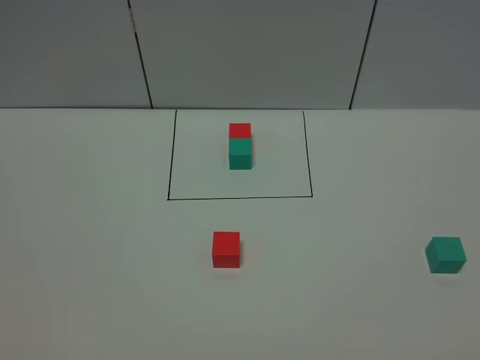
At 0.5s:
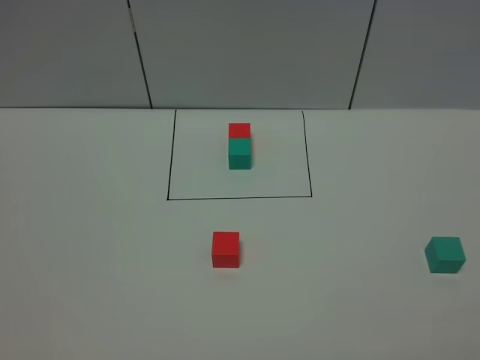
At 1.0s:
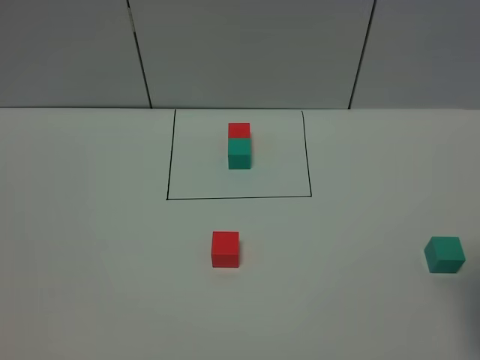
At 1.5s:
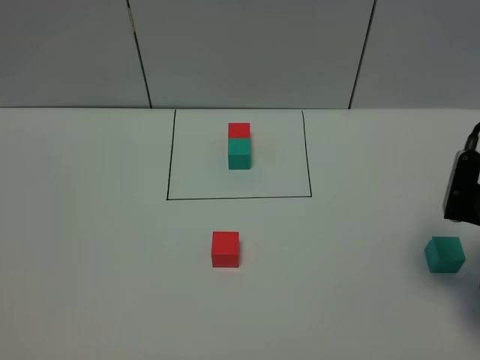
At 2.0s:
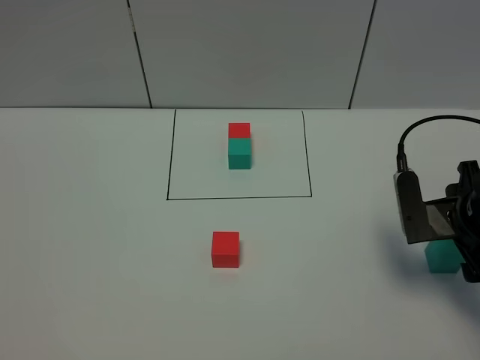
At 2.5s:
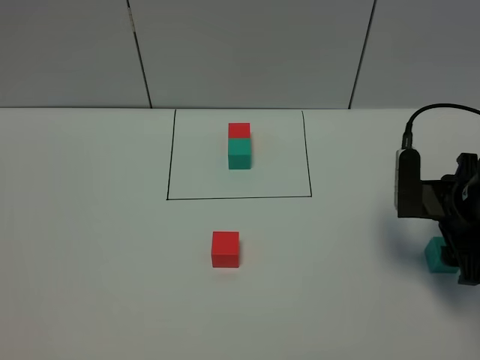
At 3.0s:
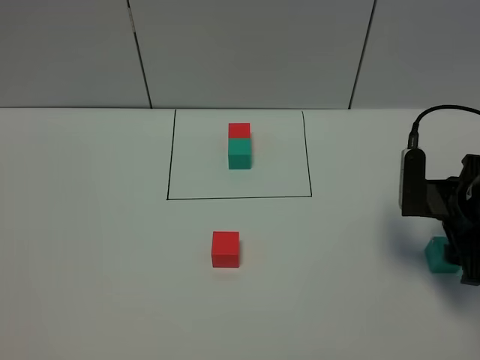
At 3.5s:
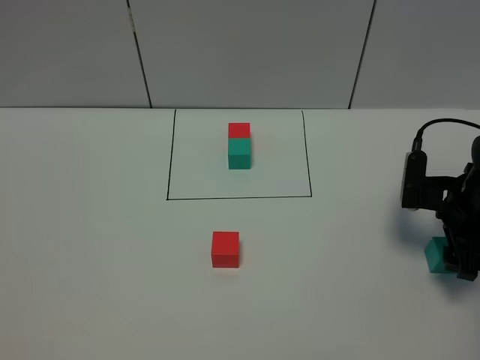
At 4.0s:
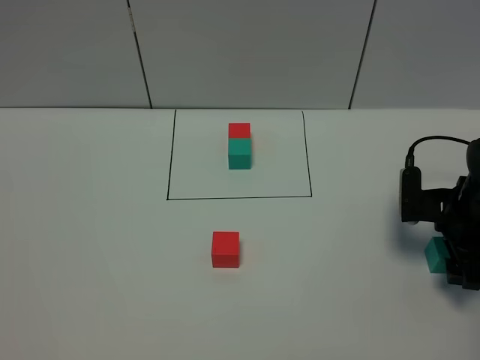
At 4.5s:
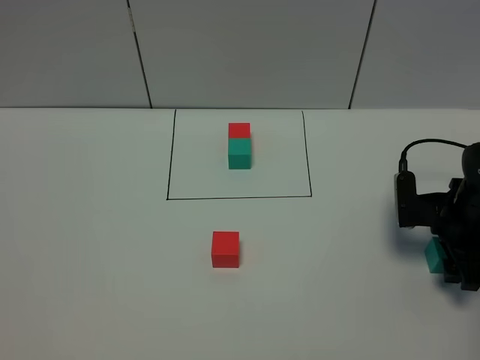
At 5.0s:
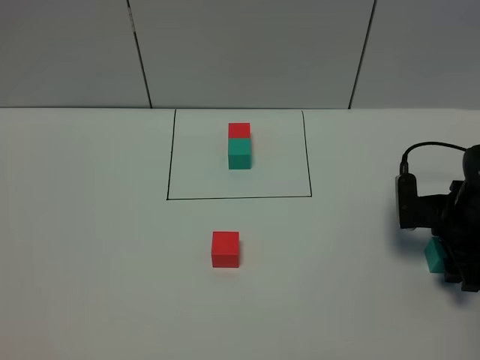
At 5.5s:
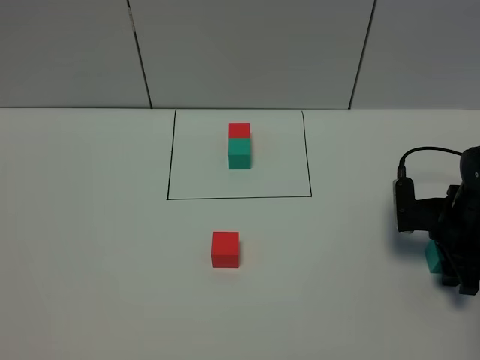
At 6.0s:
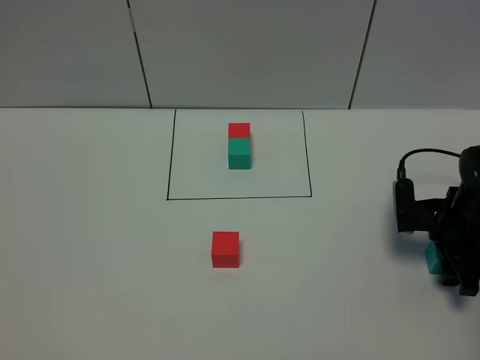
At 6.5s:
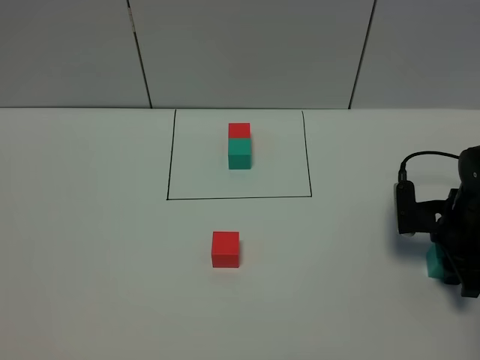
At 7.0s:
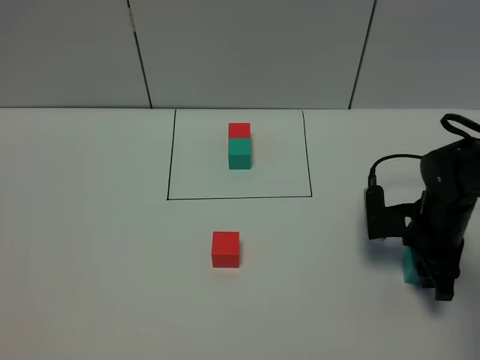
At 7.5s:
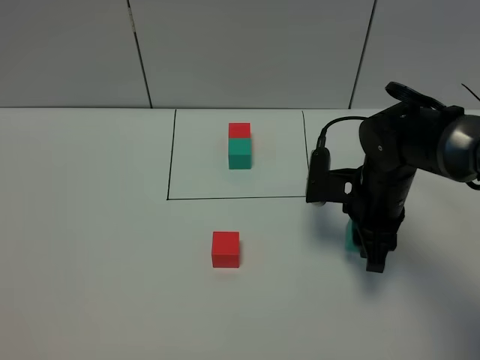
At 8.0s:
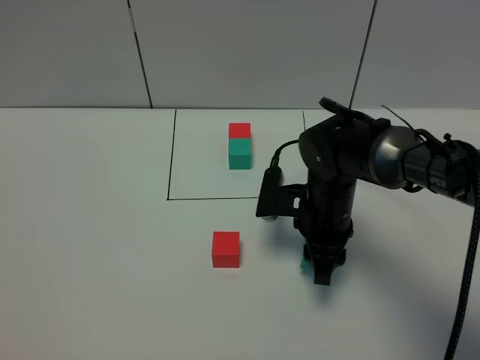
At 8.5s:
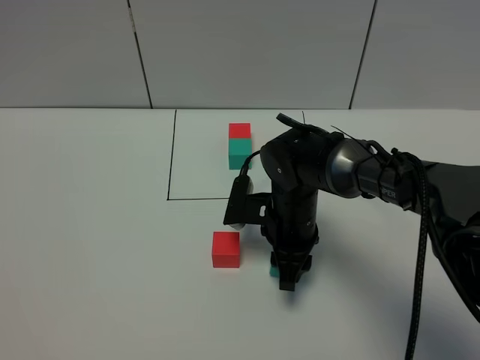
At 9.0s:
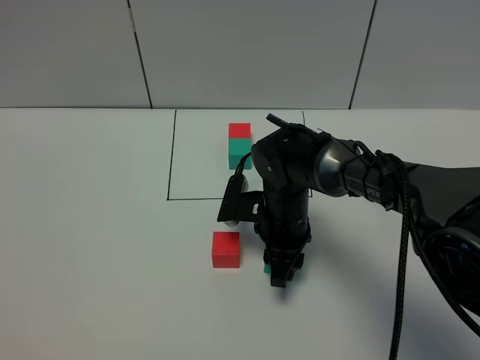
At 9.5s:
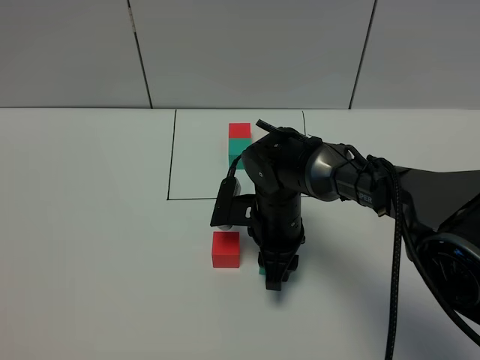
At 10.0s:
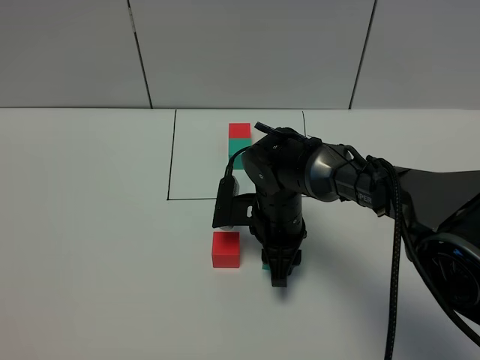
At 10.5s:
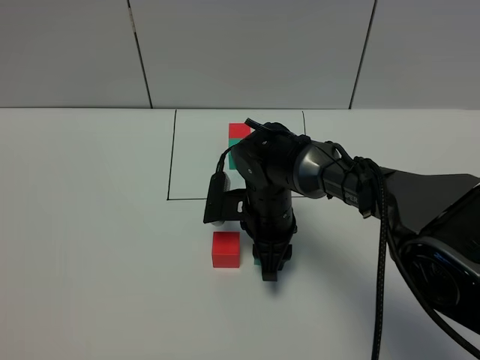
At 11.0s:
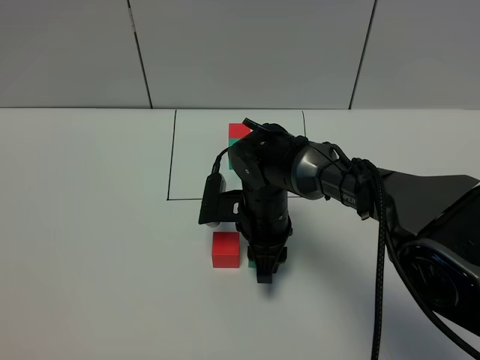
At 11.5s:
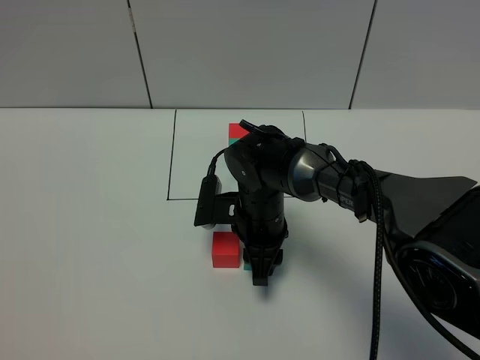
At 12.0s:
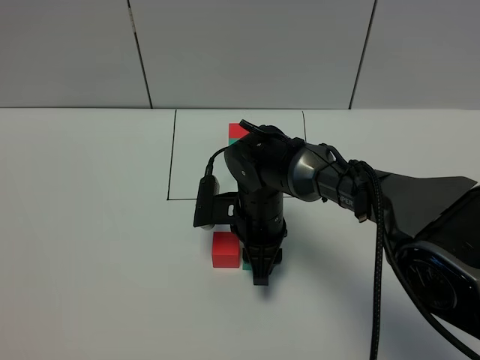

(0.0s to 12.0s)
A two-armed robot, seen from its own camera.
Task of the whole recording: According to the building block template in front, assemble the scattered blocks together.
0.0s - 2.0s: The right gripper goes roughly 30 cm forward.
2.0s - 4.0s: The right gripper shifts approximately 5 cm downward.
4.0s - 6.0s: The right gripper closes.
6.0s - 8.0s: The right gripper heads to the left, covering about 20 cm, and closes up.
8.0s - 10.0s: The right gripper travels to the left by some 5 cm.
10.0s - 12.0s: The grippers make only small movements.

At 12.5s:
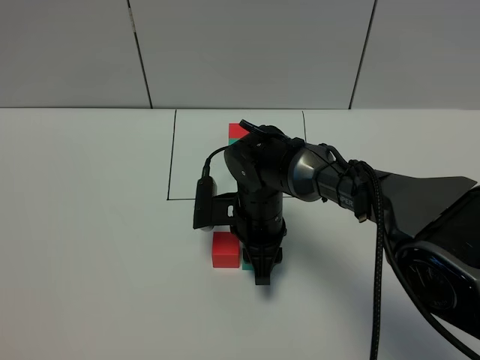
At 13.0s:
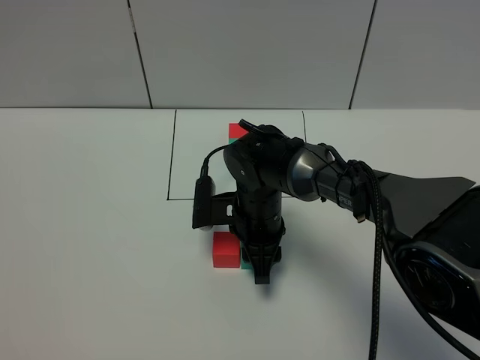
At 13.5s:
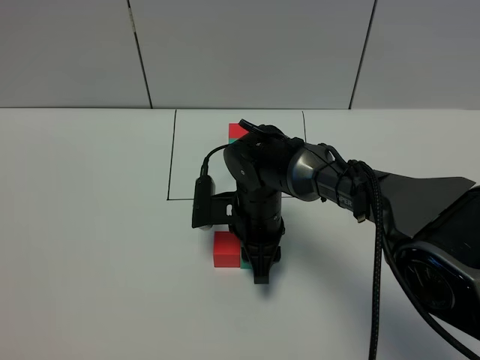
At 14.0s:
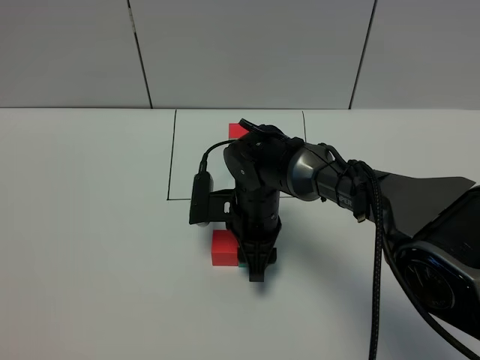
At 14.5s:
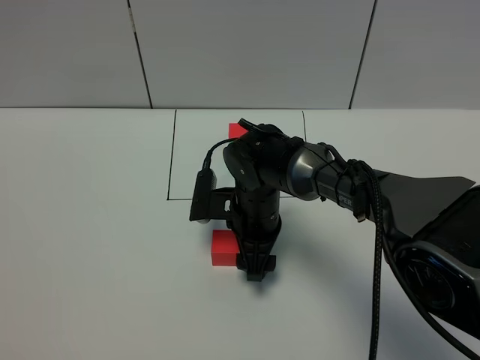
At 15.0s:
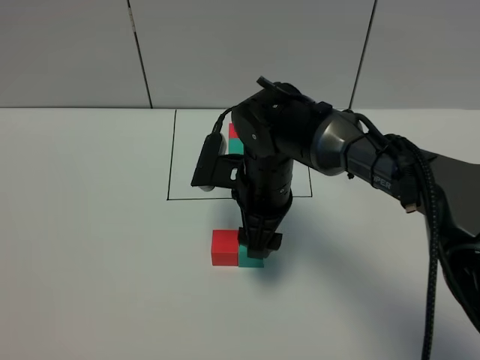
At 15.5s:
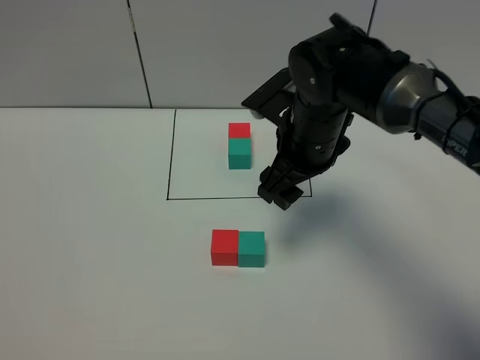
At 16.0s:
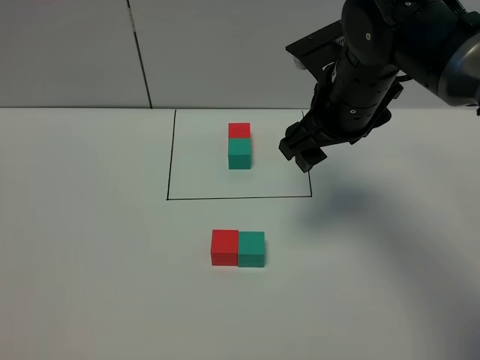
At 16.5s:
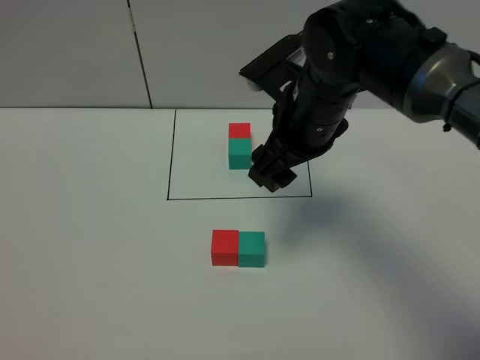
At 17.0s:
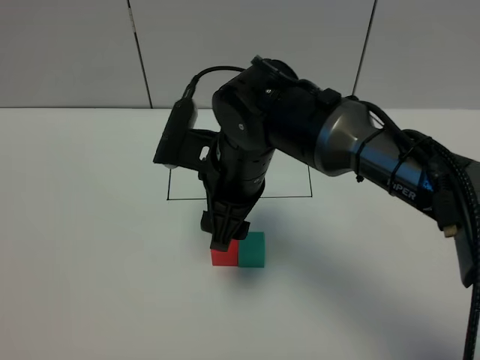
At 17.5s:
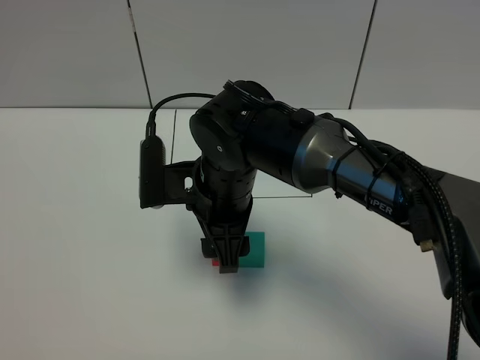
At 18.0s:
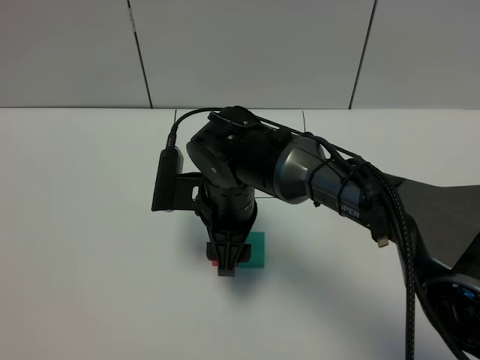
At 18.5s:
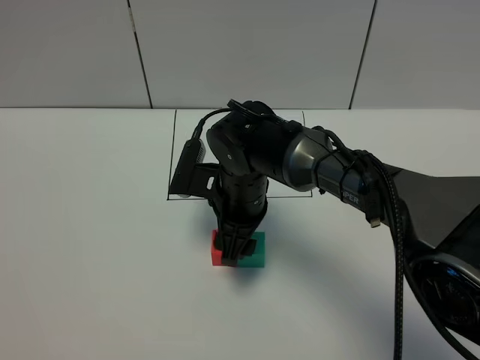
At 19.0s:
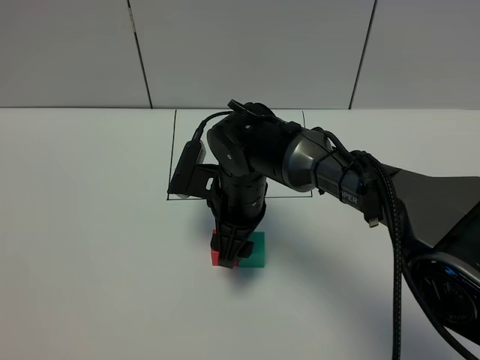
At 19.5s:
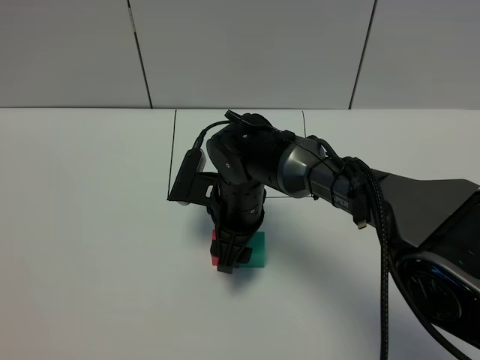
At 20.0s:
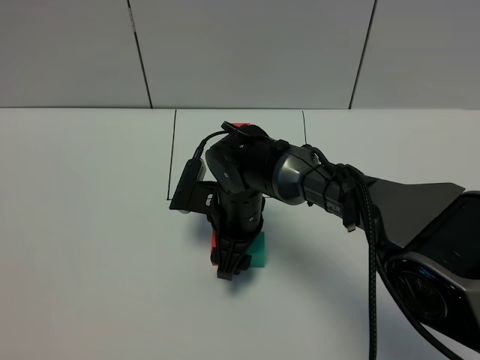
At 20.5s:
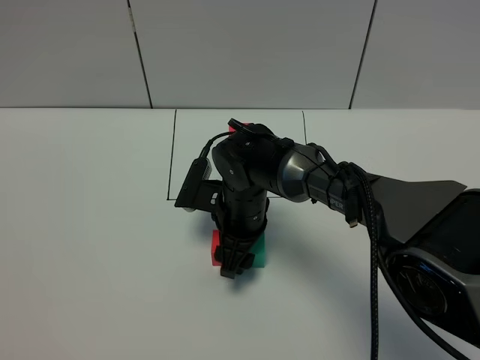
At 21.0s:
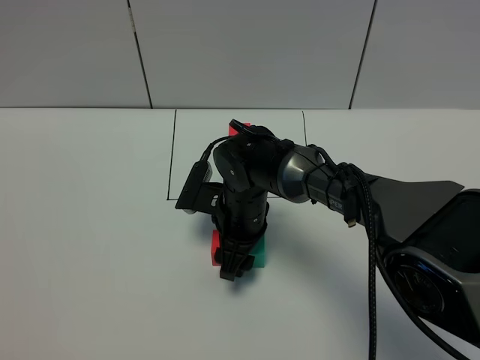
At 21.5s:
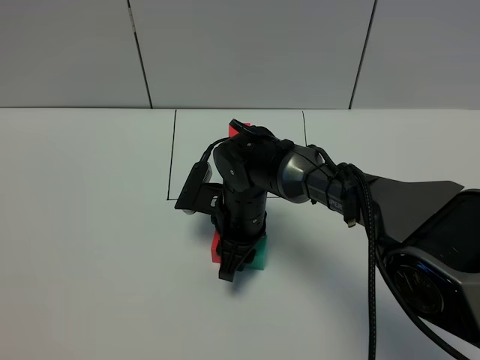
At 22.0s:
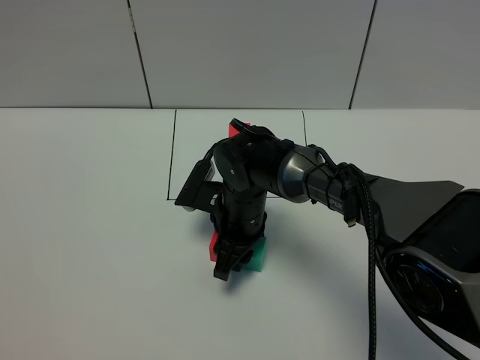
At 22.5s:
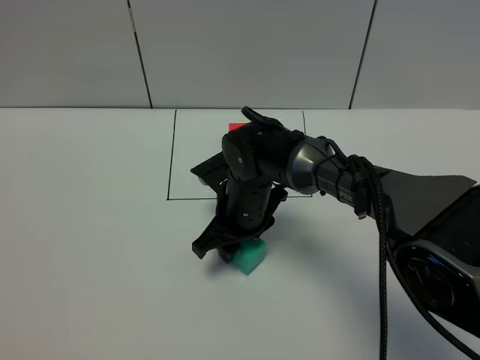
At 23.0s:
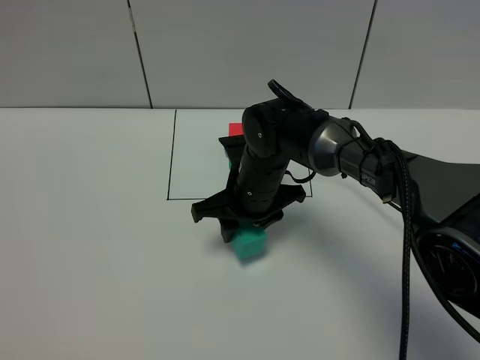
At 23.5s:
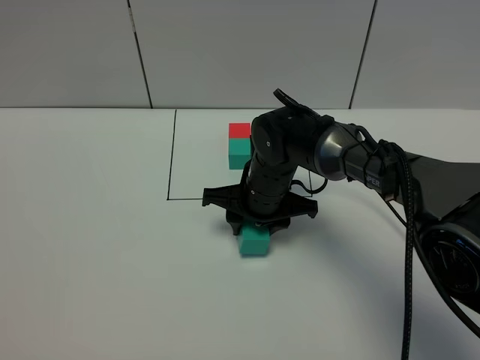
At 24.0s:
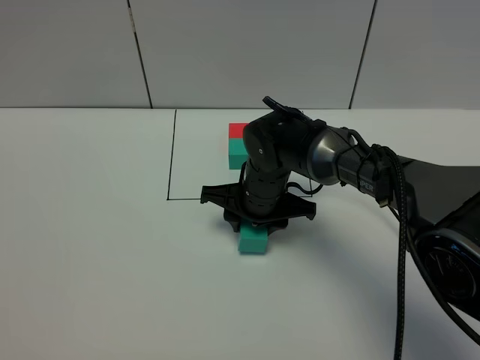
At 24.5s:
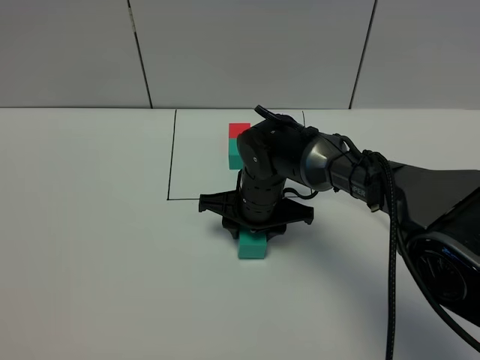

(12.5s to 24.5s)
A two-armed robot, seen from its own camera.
Task of the whole recording: According to the building block template in front, assemble the scattered blocks together.
12.5s - 14.5s: The right gripper opens.
14.5s - 16.5s: The right gripper shifts some 15 cm upward.
16.5s - 18.5s: The right gripper heads downward and to the left, covering some 15 cm.
18.5s - 20.5s: The grippers stay close to where they were, moving slightly.
20.5s - 22.5s: The right gripper closes.

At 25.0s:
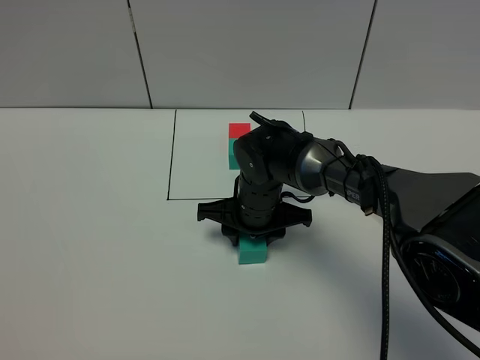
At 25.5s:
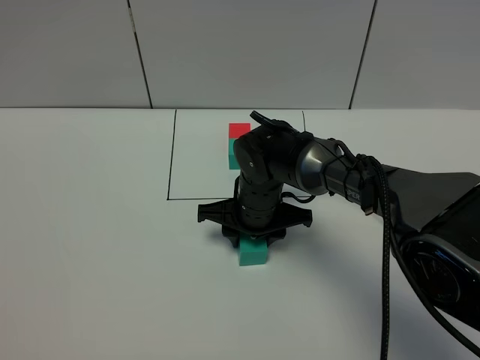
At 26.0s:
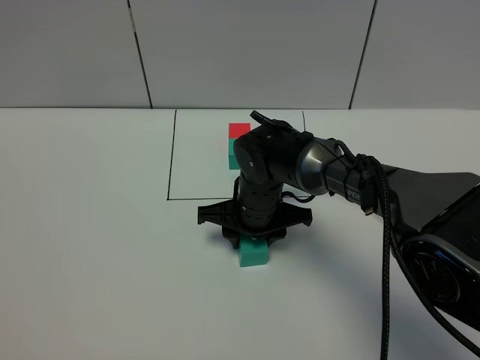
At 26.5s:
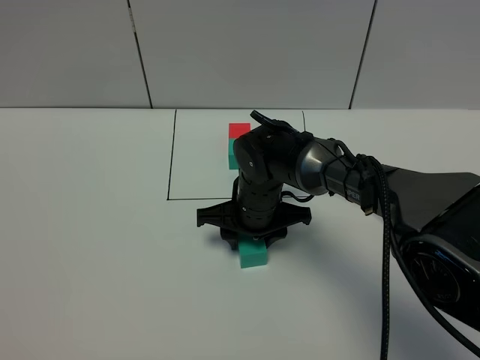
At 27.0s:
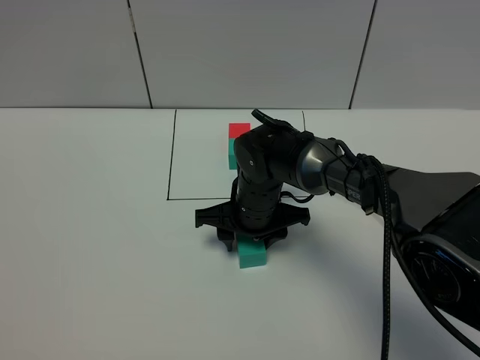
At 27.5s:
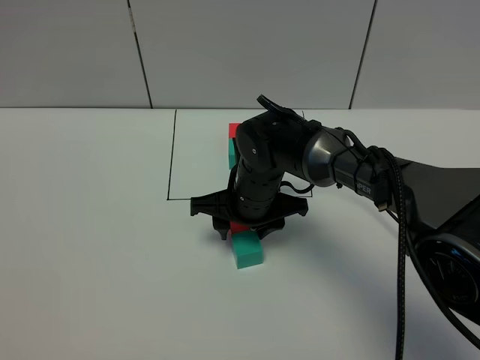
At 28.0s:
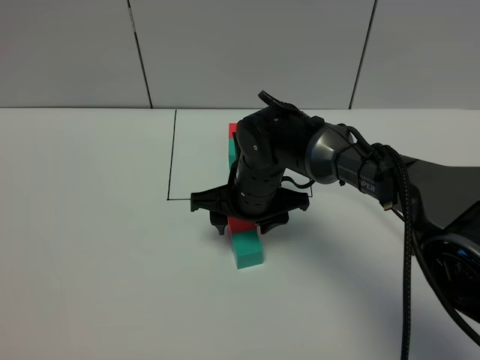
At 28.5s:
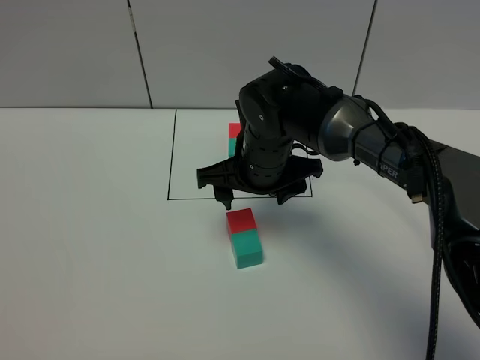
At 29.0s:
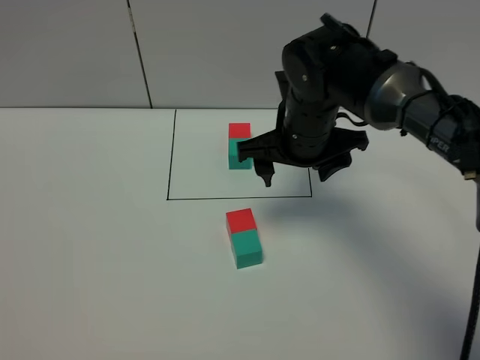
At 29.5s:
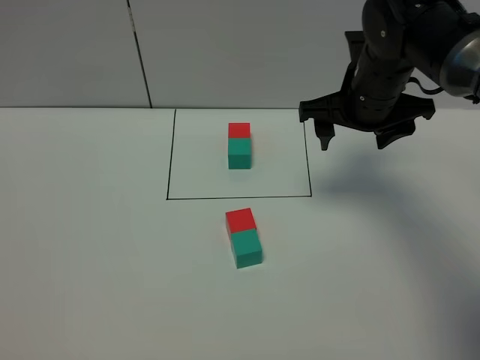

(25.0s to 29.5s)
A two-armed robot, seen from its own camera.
Task of the whole recording: According to the building block template in front, assemble the scattered blocks together.
25.0s - 27.0s: The grippers stay close to where they were, moving slightly.
27.0s - 29.5s: The right gripper shifts approximately 20 cm upward and to the right, and opens up.
